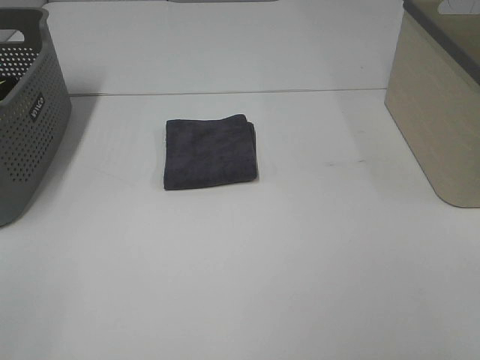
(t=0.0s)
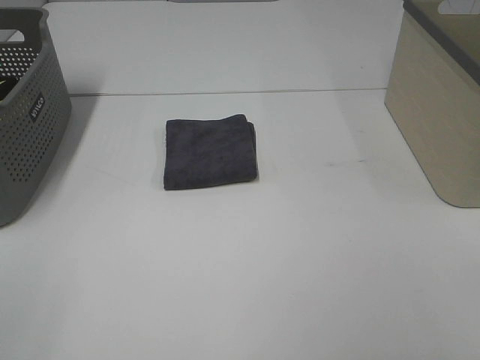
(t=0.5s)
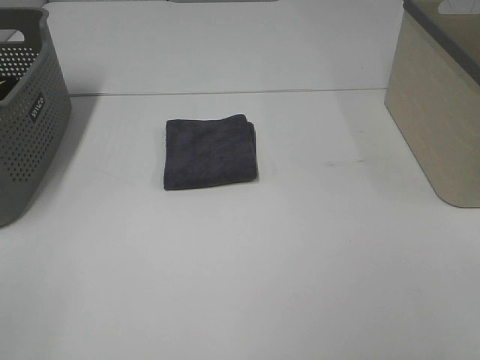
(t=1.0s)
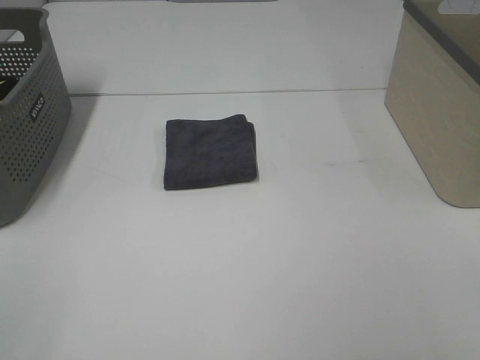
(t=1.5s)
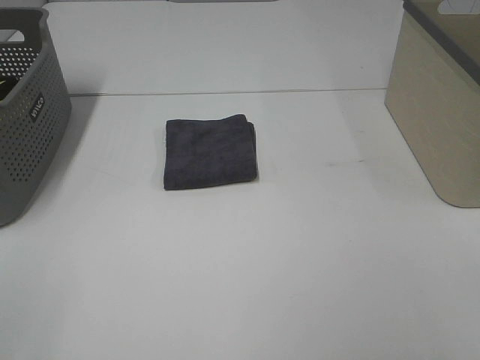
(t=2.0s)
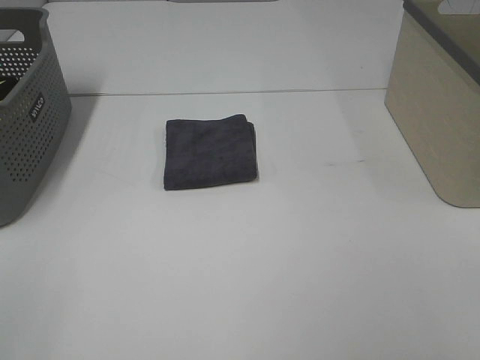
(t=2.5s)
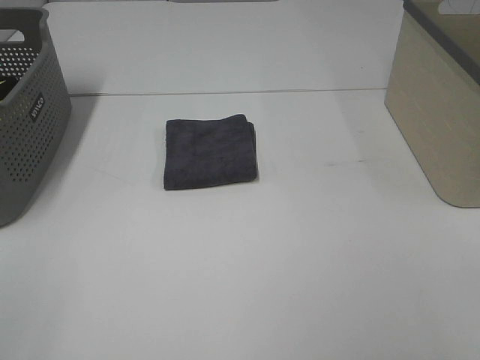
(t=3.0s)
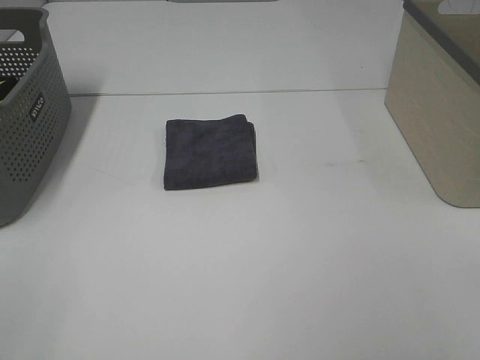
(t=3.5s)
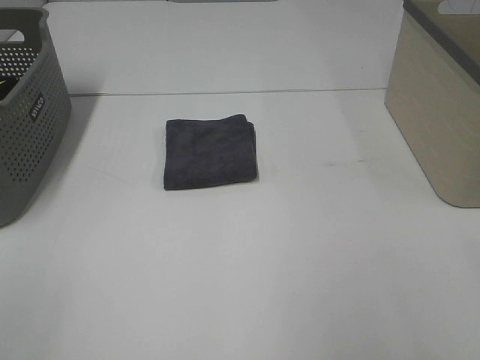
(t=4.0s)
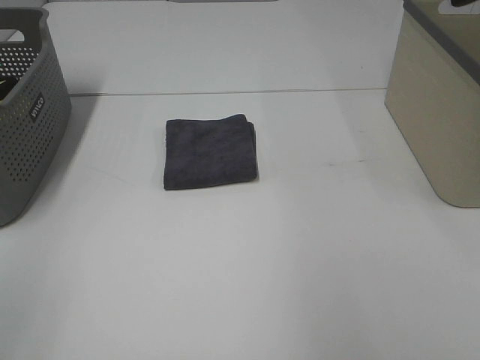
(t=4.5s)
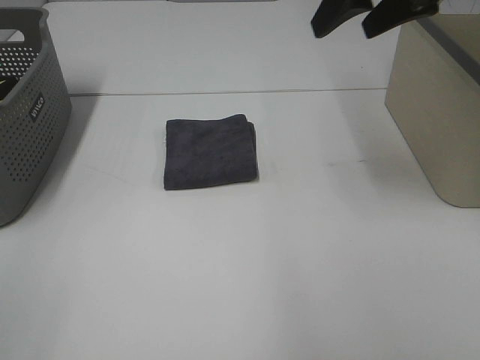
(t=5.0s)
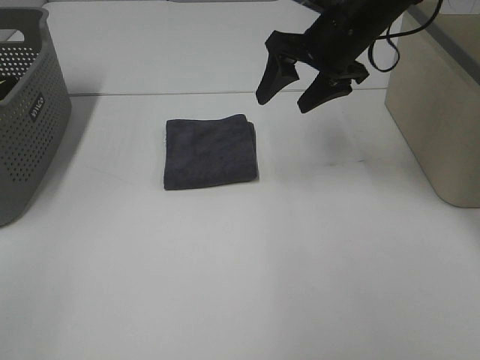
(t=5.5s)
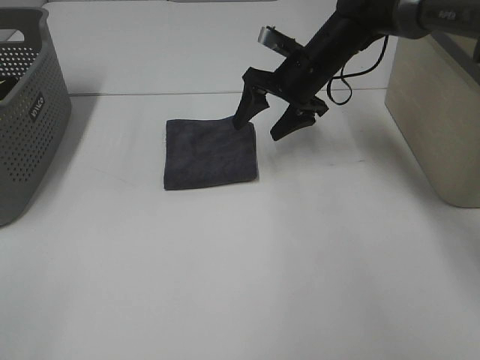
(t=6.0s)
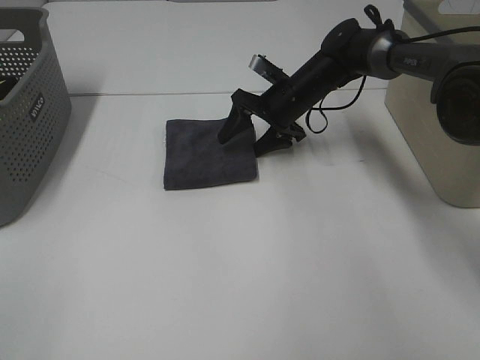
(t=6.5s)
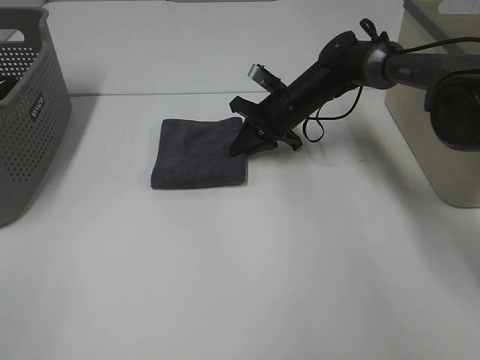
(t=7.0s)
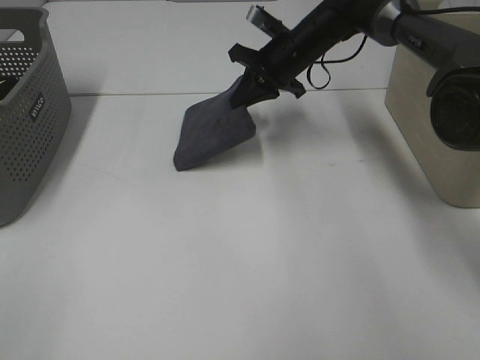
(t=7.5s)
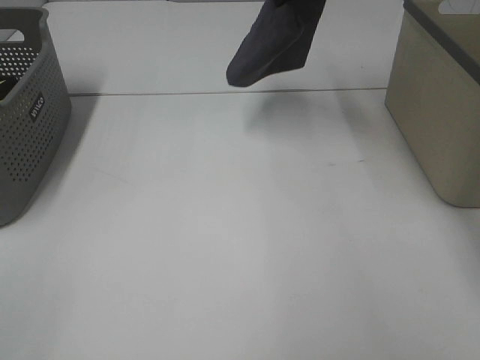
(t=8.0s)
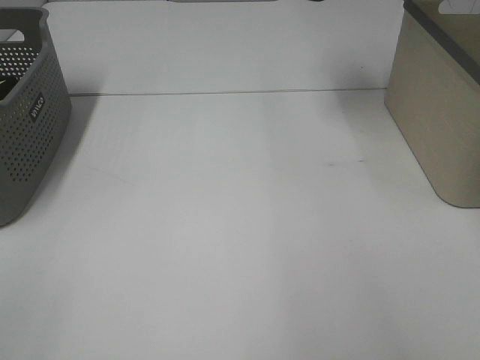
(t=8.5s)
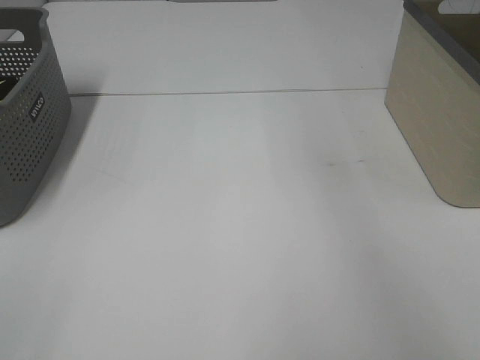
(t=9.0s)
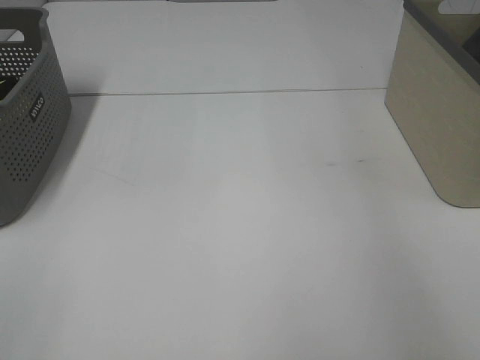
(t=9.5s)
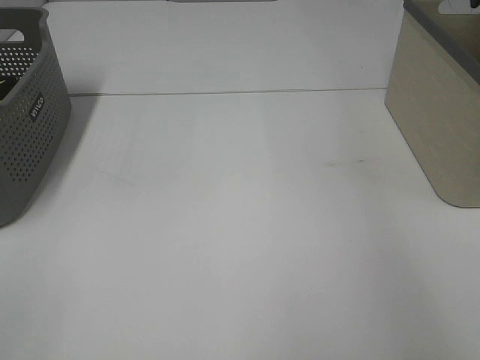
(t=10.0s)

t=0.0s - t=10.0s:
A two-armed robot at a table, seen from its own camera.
Step, t=0.0s - t=7.0s: Right hand: grab the folded grey towel.
Step, t=7.5s - t=9.5s: Right hand: place the grey towel in right basket.
t=0.0s - t=2.0s: Both grippers stay about where they are.
t=4.0s - t=6.0s: The right gripper shifts about 50 cm forward, downward and to the left.
t=6.0s - t=8.0s: The right gripper travels upward by about 20 cm, and closes.
t=8.0s - t=10.0s: The right gripper travels to the right by roughly 25 cm, and opens its fingers.

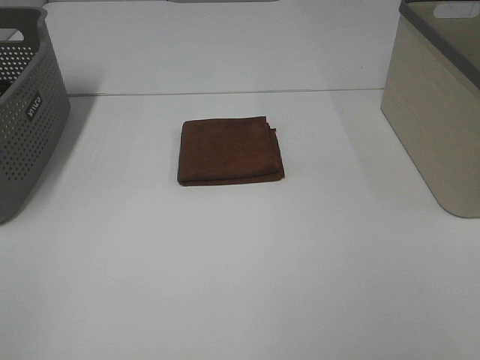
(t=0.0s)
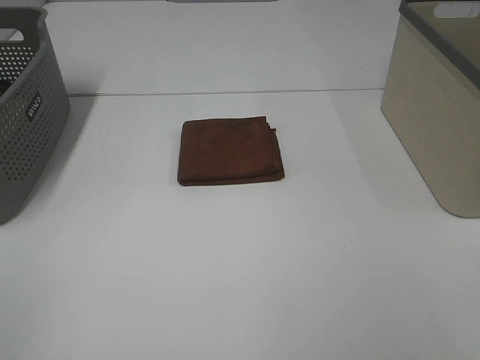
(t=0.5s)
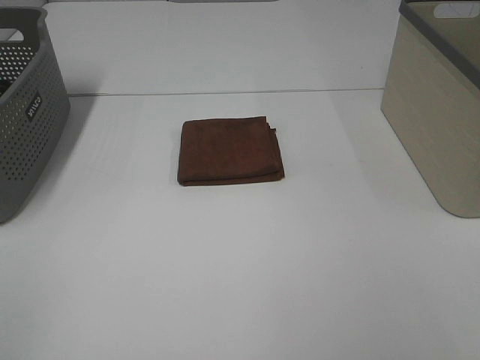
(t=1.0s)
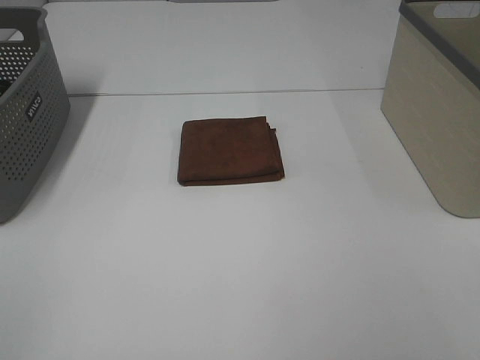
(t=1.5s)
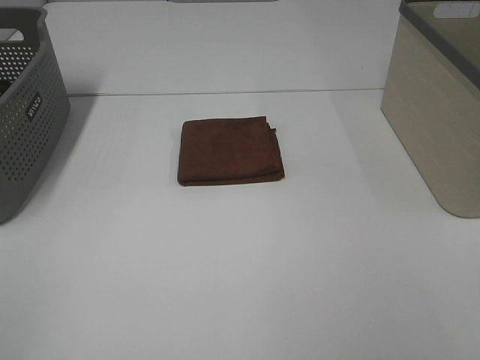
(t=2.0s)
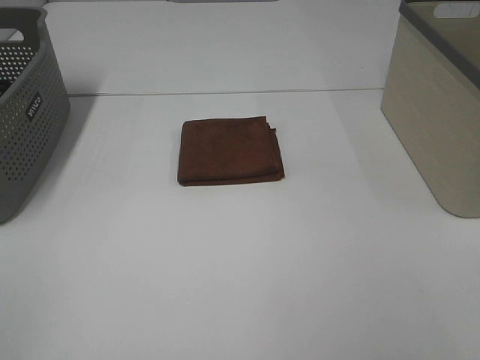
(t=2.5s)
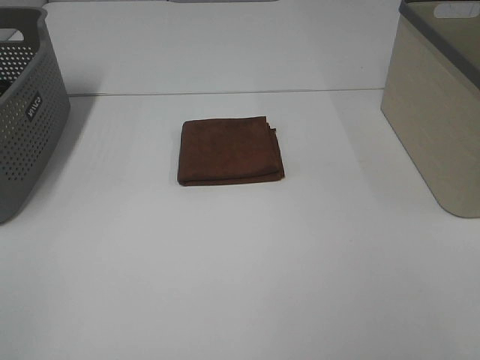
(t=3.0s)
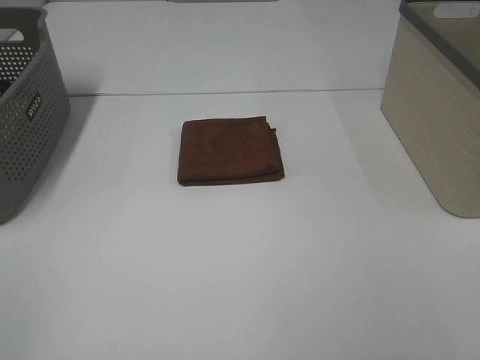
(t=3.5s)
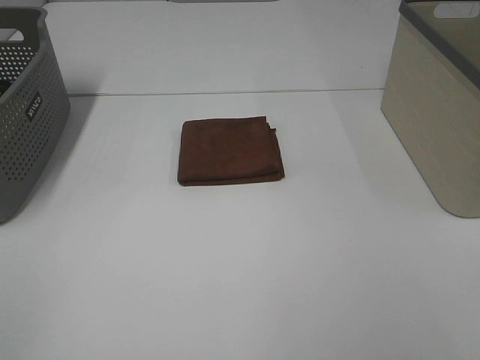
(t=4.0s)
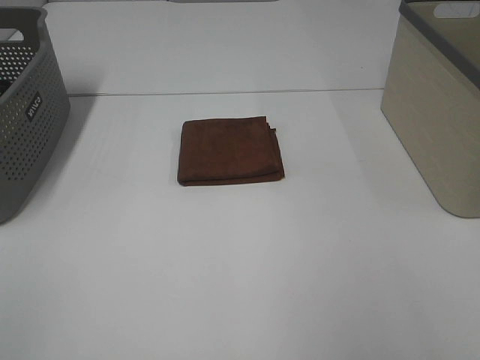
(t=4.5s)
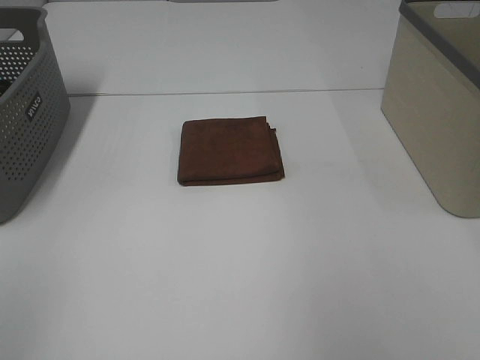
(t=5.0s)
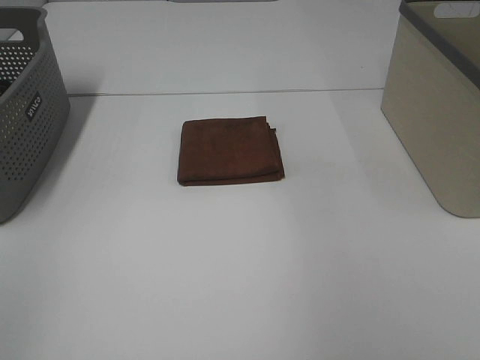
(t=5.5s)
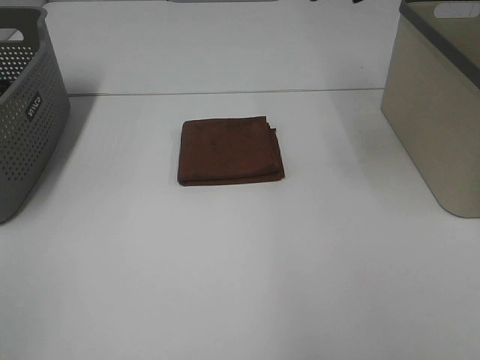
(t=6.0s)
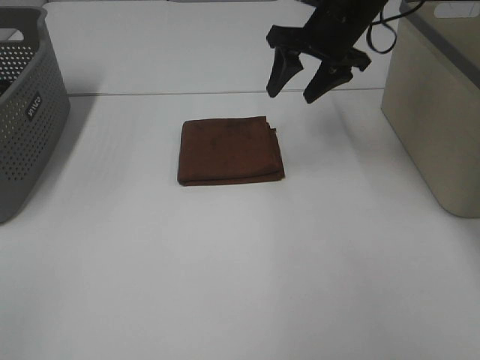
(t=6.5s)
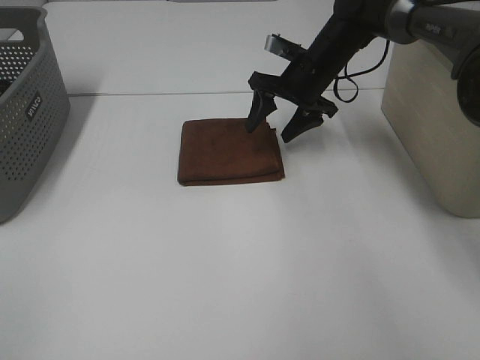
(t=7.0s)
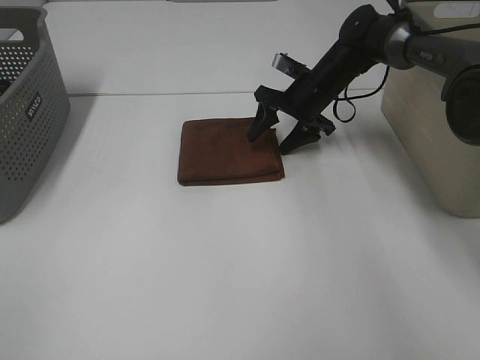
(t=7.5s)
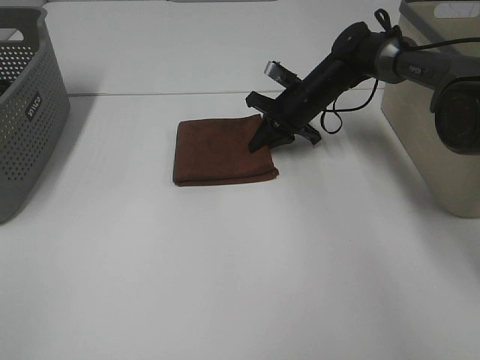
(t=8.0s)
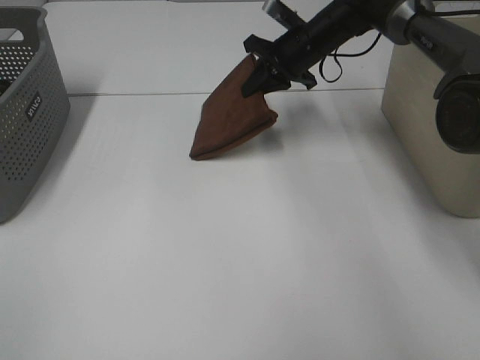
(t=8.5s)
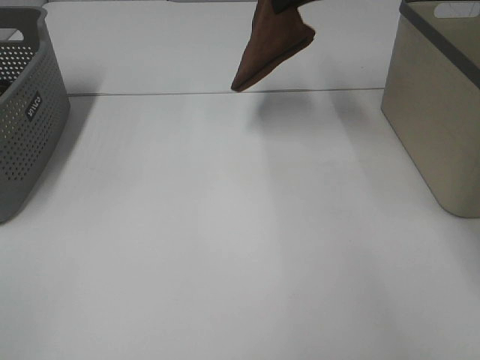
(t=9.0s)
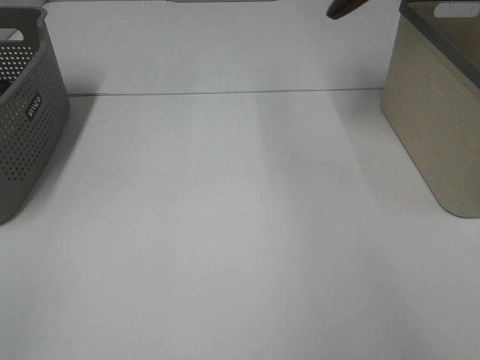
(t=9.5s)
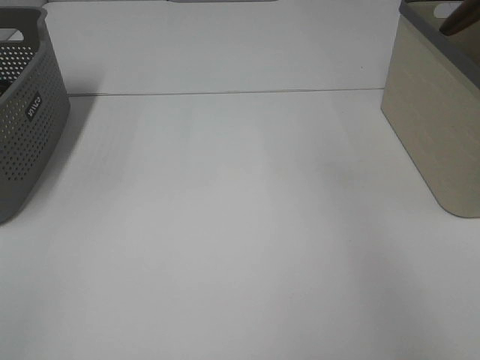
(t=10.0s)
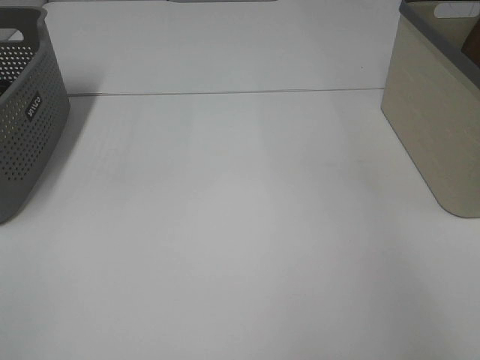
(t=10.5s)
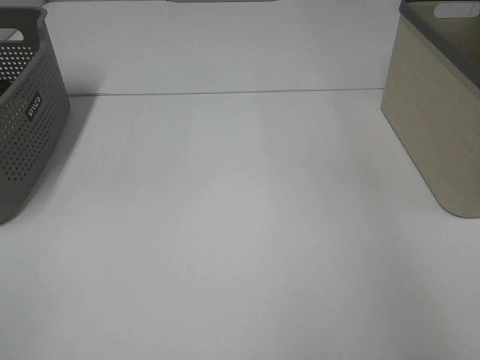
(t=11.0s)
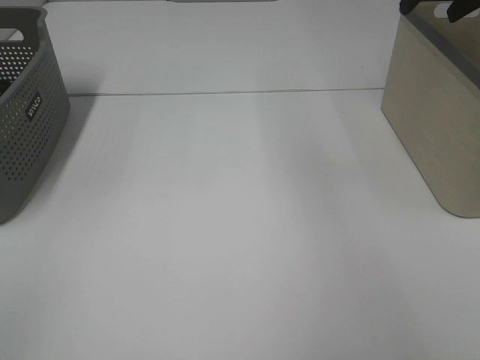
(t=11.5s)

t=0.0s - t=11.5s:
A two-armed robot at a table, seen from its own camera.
Step, t=0.0s - t=8.0s: Right hand: grab the folded brown towel.
Step, t=8.5s - t=10.5s: Right hand: place the brown towel in right basket.
t=0.0s - t=4.0s: Both grippers stay put.
t=4.0s - t=6.0s: The right gripper shifts roughly 40 cm forward.
t=6.0s - t=7.5s: The right gripper travels downward by some 25 cm.
t=7.5s - t=9.5s: The right gripper shifts some 30 cm upward, and closes.
t=9.5s - t=11.5s: The right gripper moves downward, roughly 10 cm, reaches roughly 15 cm to the right, then returns, and opens.

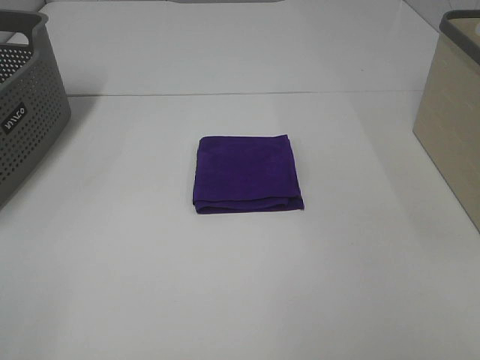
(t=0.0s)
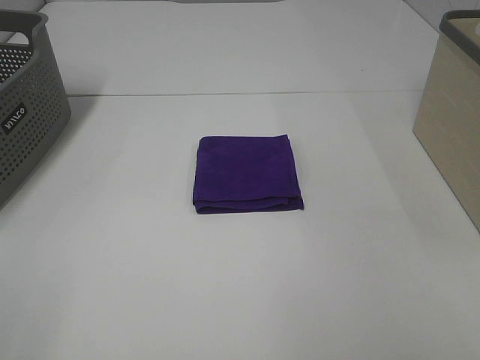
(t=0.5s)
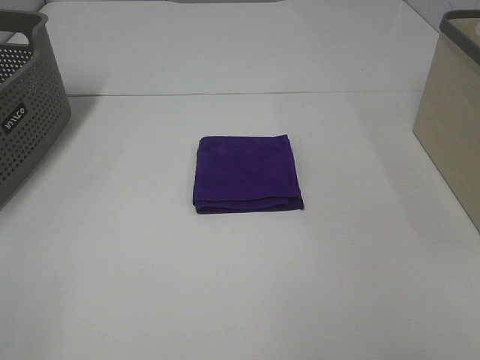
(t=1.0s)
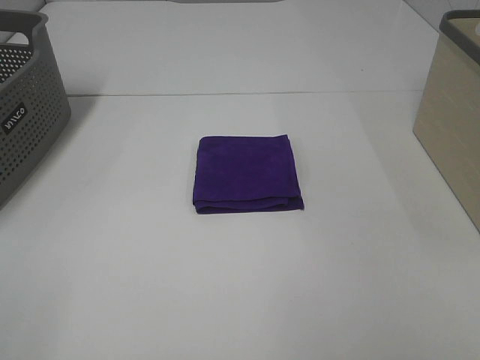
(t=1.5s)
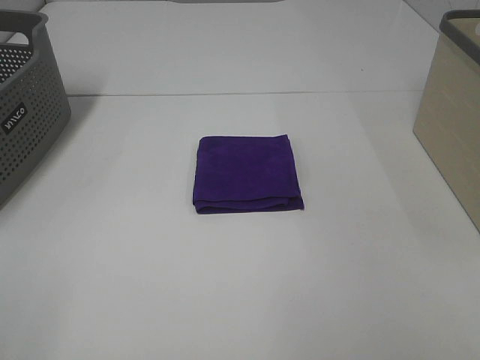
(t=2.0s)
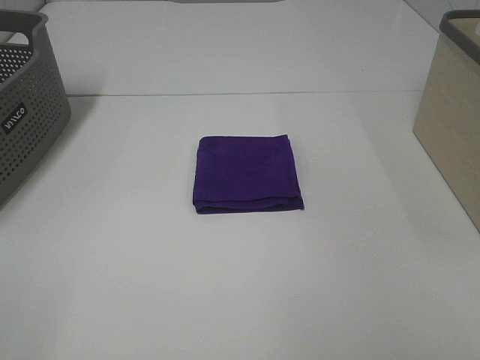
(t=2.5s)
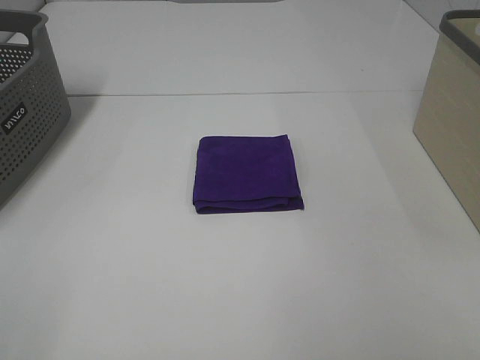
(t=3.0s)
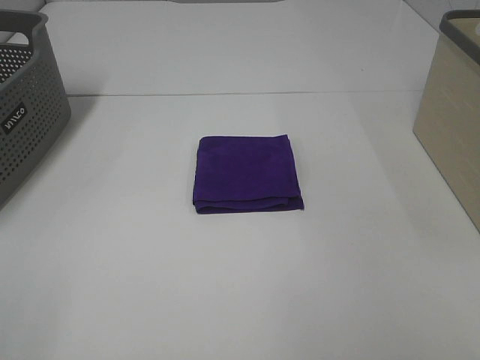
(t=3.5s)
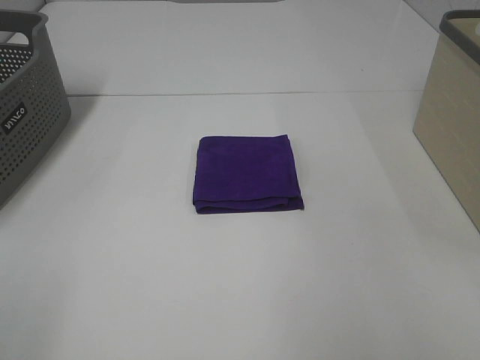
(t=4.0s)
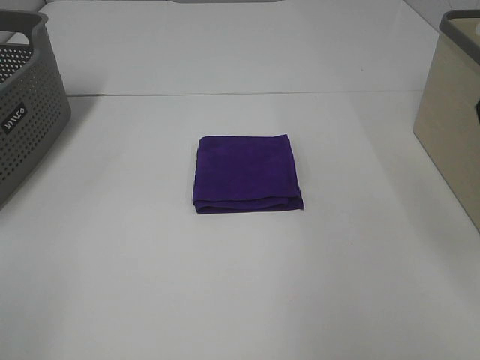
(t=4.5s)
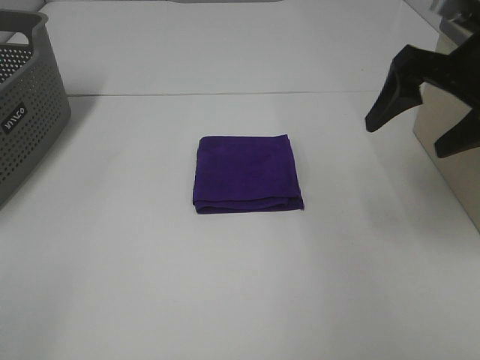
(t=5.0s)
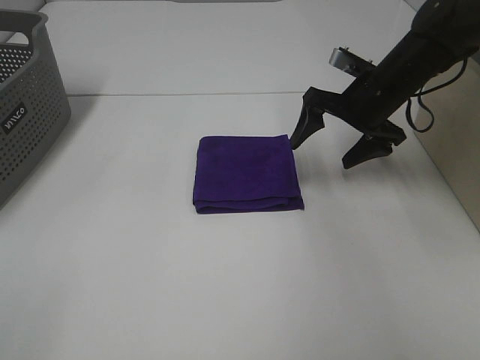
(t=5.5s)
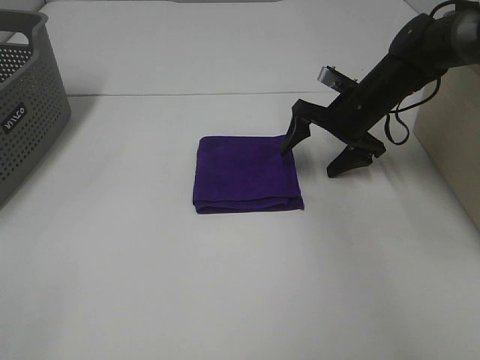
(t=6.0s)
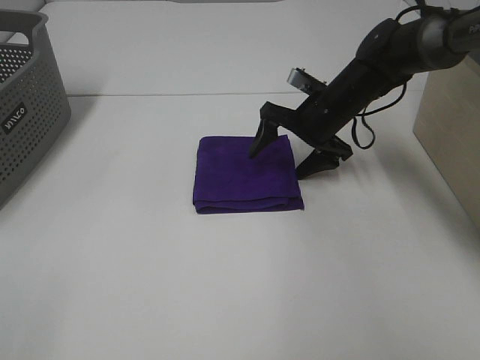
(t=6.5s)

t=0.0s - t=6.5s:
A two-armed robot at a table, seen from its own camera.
t=0.0s - t=2.0s: Both grippers stay put.
t=4.5s - t=6.5s: The right gripper moves downward, forward and to the left, some 35 cm.
